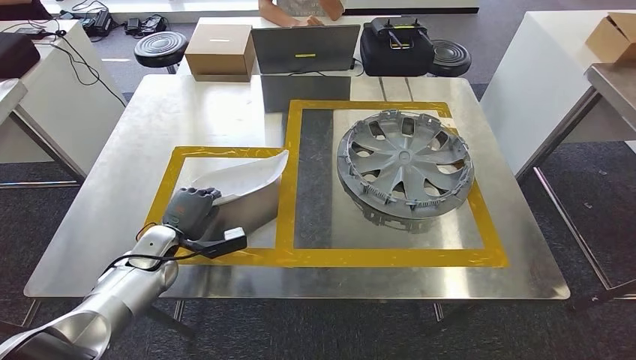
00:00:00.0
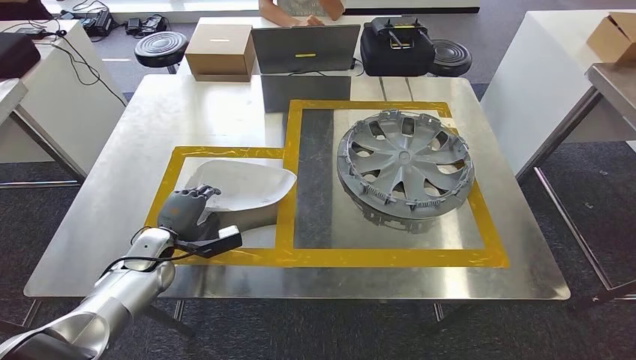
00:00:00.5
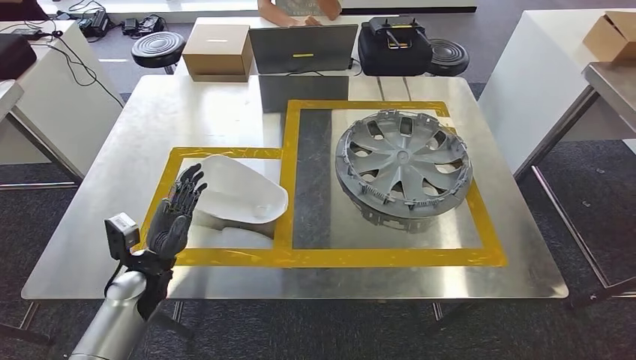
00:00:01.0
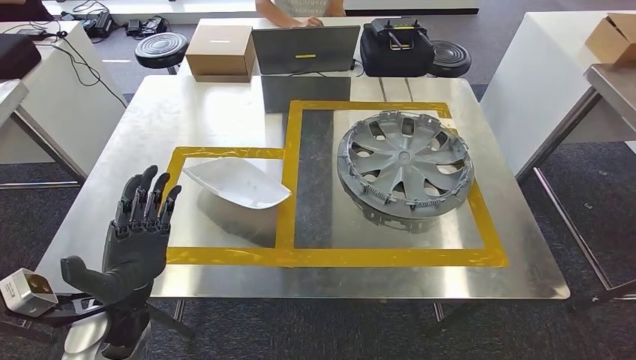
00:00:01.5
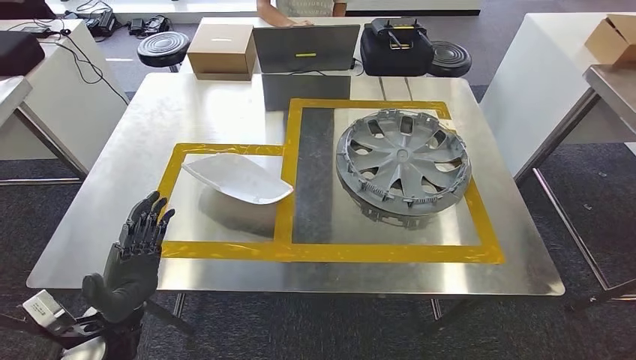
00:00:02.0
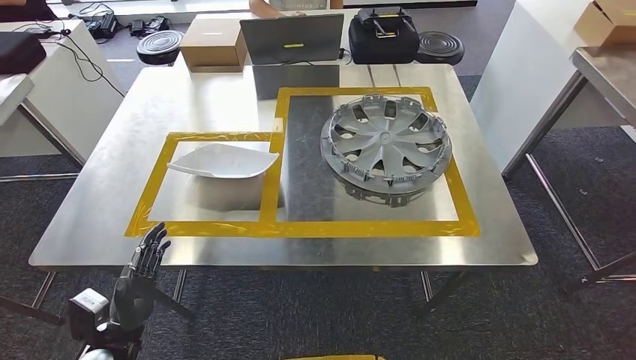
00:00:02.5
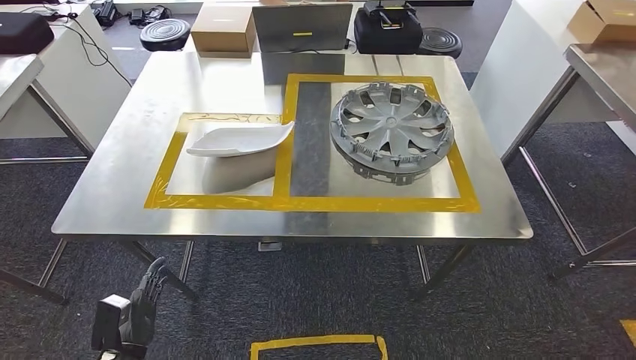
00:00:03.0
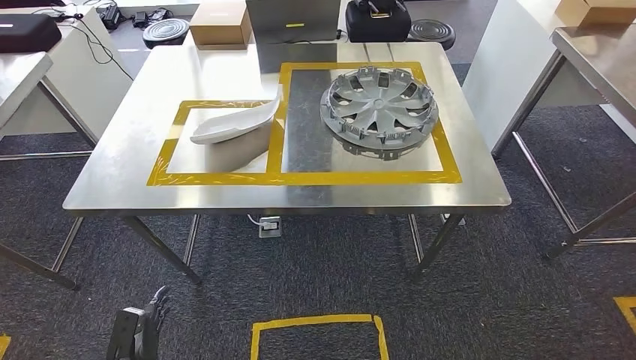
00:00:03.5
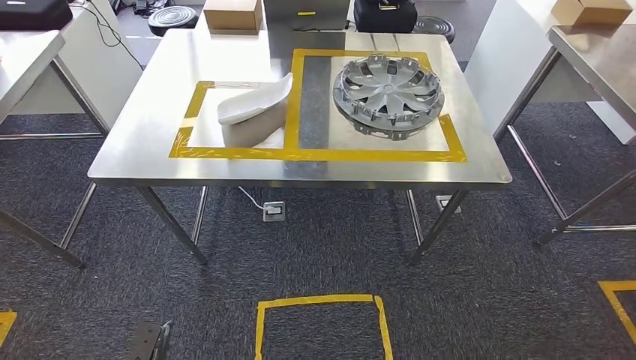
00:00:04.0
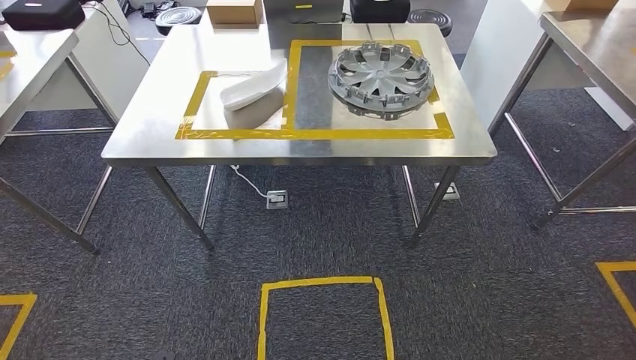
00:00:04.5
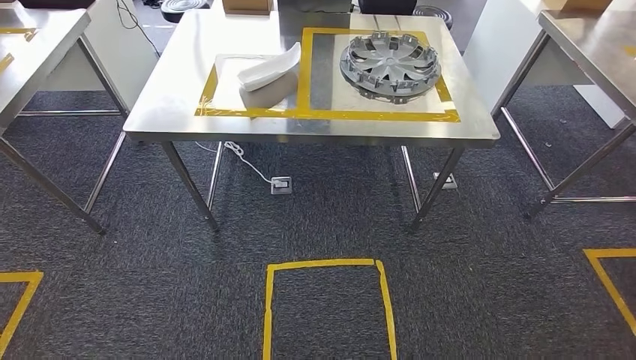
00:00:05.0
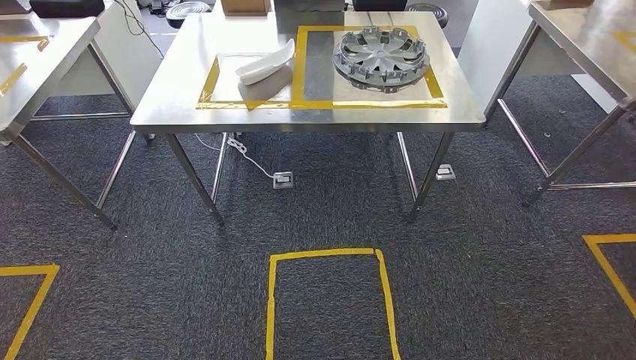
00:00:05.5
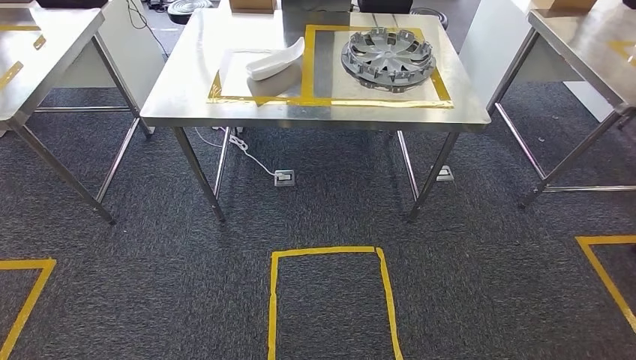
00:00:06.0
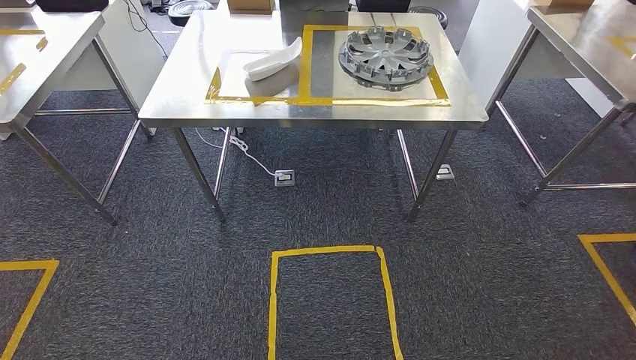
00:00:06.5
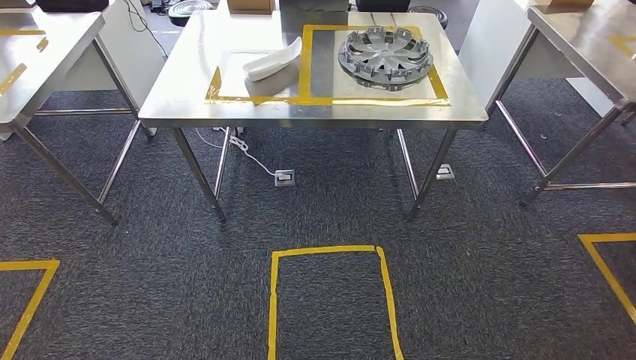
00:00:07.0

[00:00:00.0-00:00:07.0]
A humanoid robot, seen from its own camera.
Step, 00:00:00.0 to 00:00:02.5: Insert the small parts into the corresponding holes on the workbench.
Step, 00:00:03.0 to 00:00:07.0: Move to the initial position of the workbench.
00:00:00.0 to 00:00:02.0: The left hand is displaced backward by about 15 cm.
